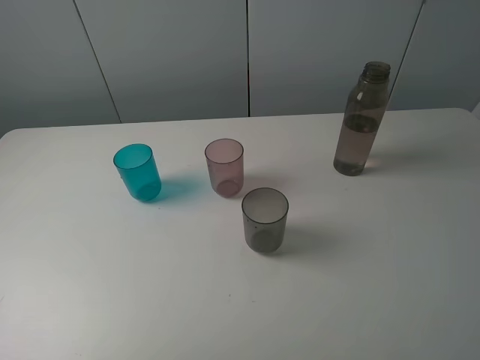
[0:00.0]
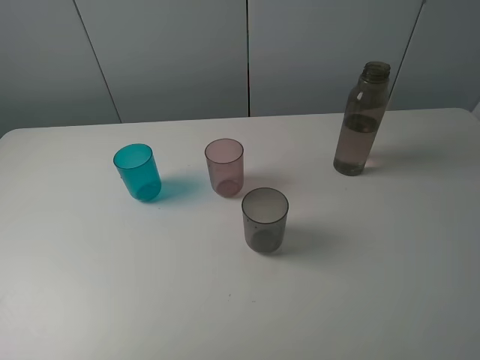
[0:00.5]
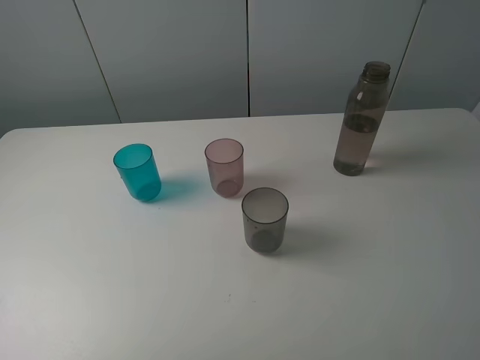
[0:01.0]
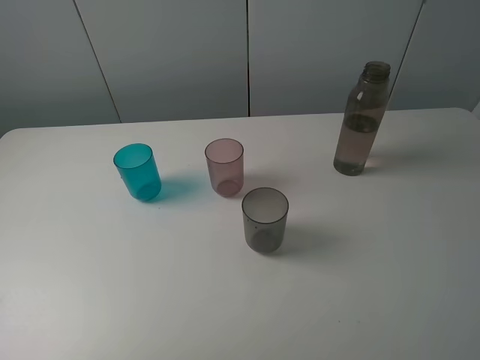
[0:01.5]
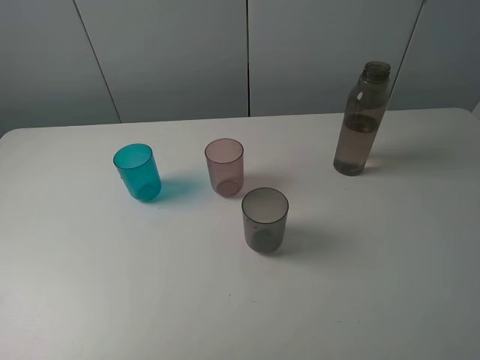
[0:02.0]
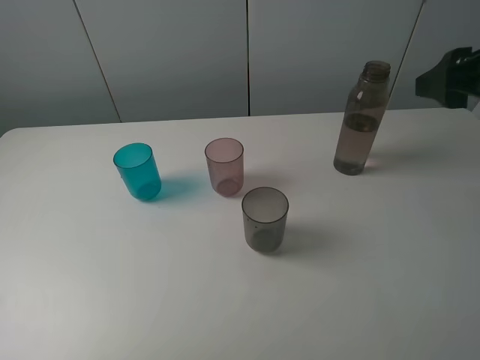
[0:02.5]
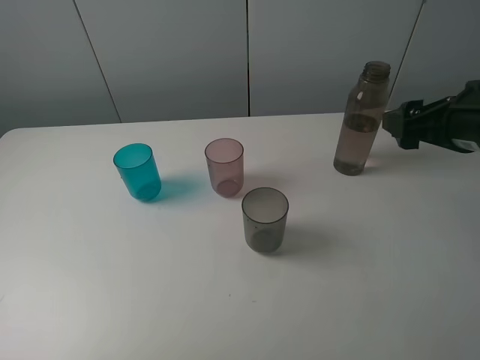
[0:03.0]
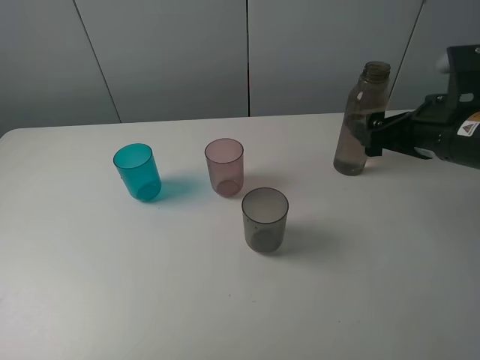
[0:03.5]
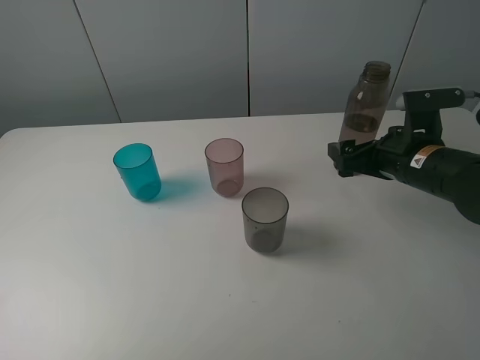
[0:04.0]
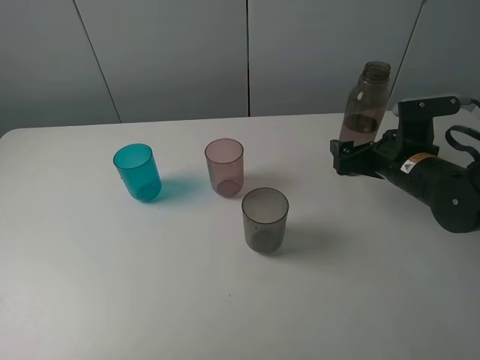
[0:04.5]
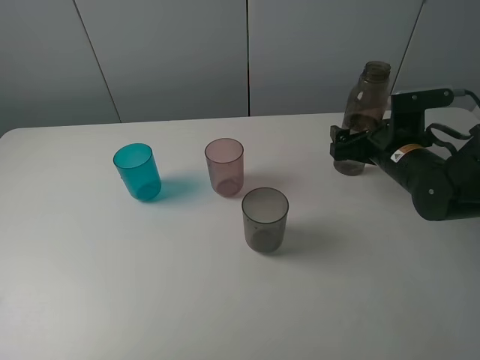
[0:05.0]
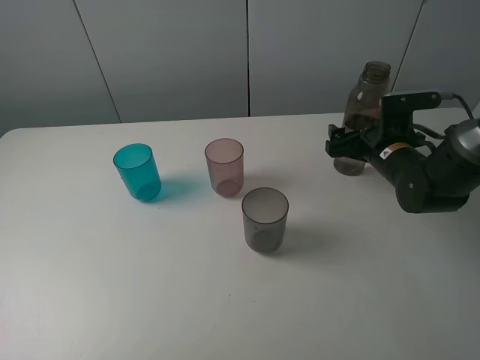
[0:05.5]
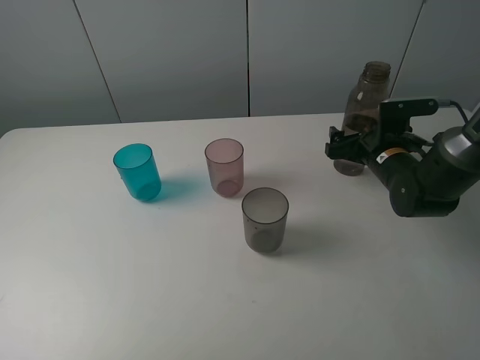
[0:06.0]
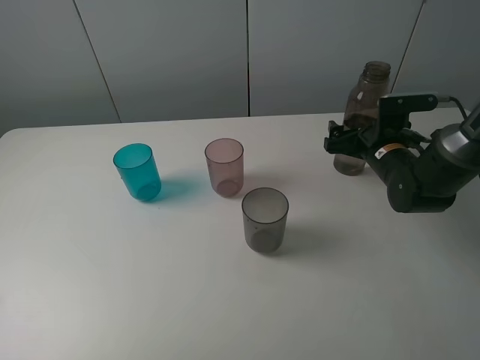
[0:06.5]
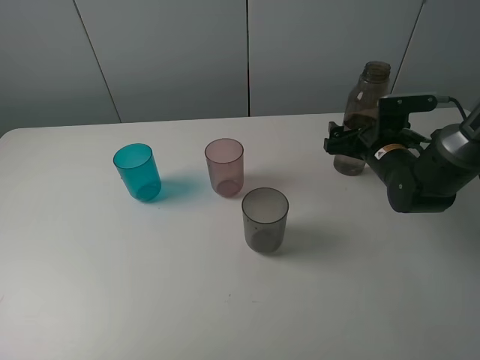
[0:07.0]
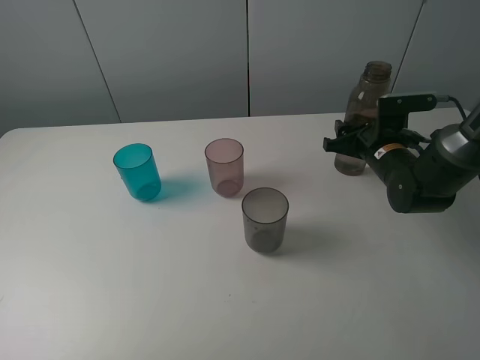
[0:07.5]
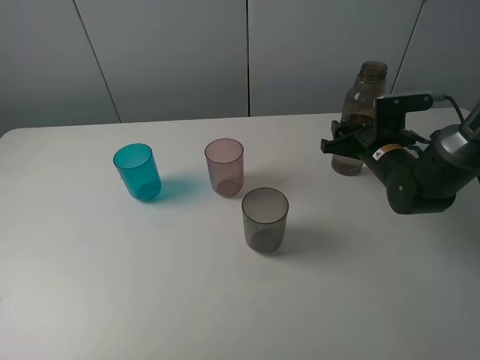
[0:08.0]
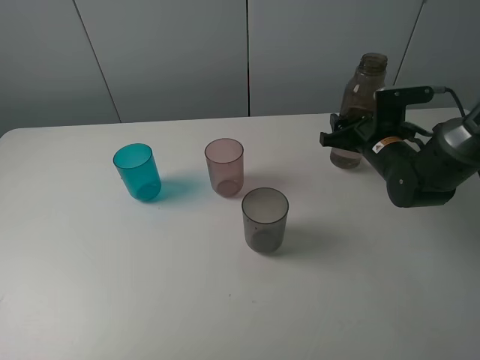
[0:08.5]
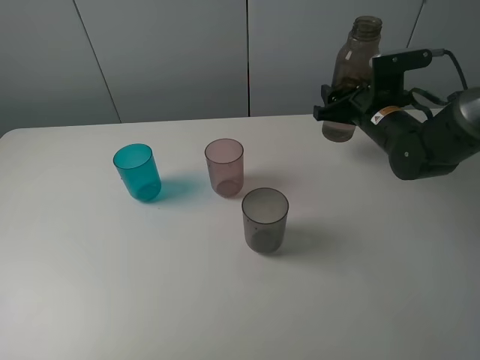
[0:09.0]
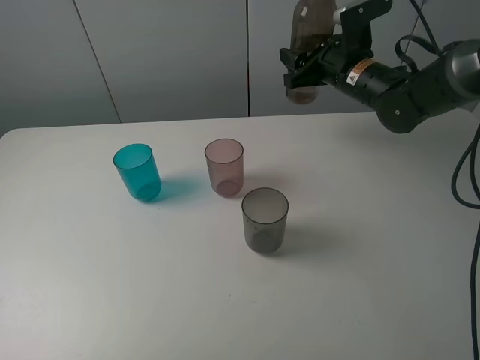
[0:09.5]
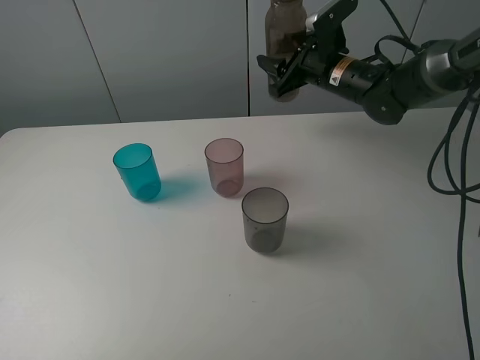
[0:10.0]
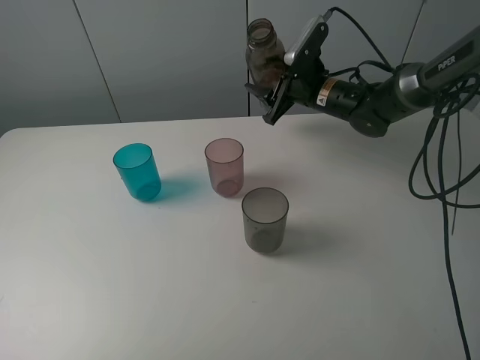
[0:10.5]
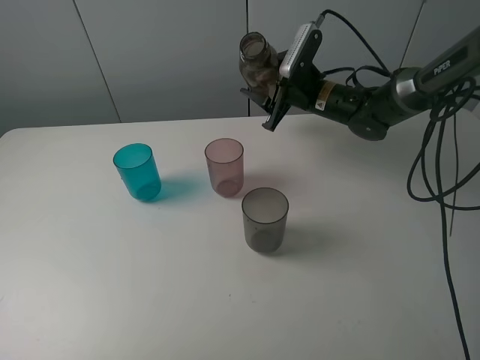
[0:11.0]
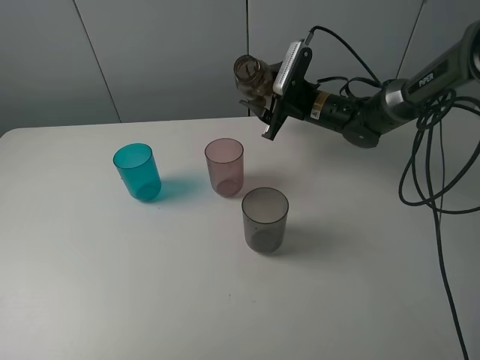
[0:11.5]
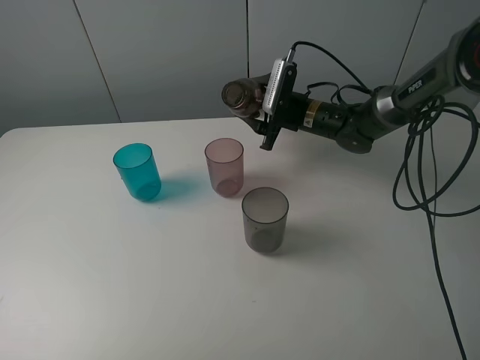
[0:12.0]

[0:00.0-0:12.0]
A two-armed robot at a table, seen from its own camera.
Task of the whole recording: pick up the bottle filled with water and pour water into the middle cup of the three cups.
Step, 0:00.0 to 0:08.5: Grasp the transparent bottle with the right gripper.
0:02.0 to 0:04.0: The right gripper heads downward and forward, covering some 25 cm, and opens.
0:04.0 to 0:06.0: The right gripper heads forward and downward, covering roughly 10 cm.
0:06.0 to 0:08.0: The right gripper closes.
0:08.0 to 0:10.0: The right gripper travels upward, forward and to the left by some 15 cm.
0:10.0 to 0:12.0: The right gripper goes roughly 10 cm downward.

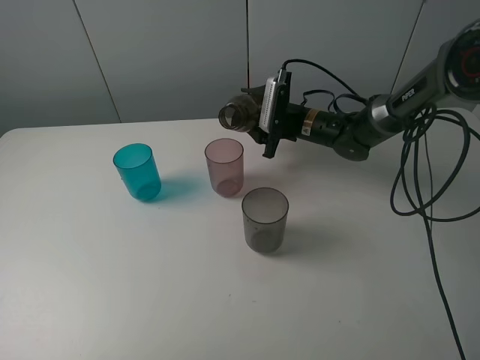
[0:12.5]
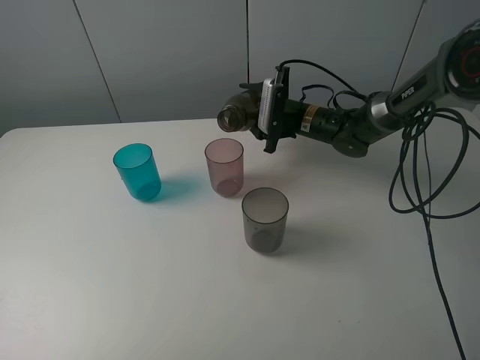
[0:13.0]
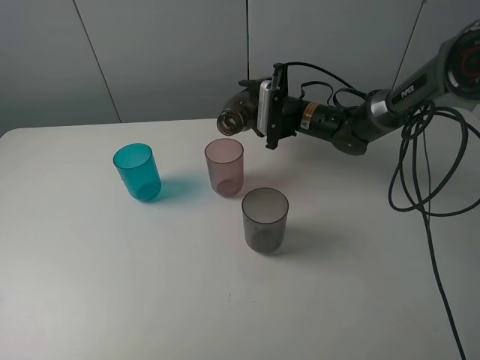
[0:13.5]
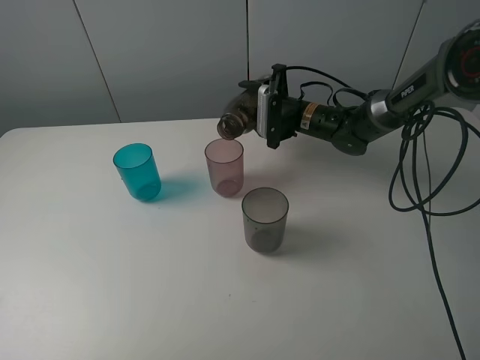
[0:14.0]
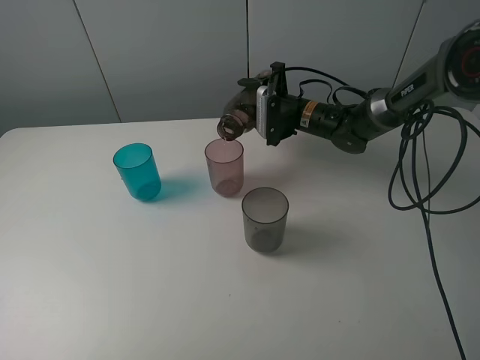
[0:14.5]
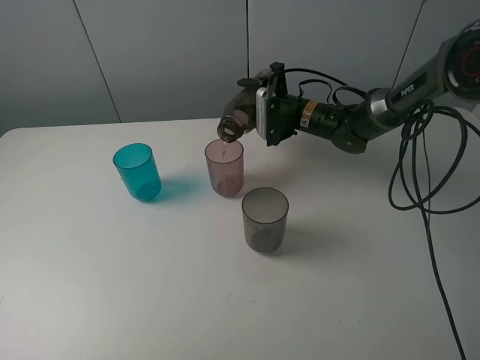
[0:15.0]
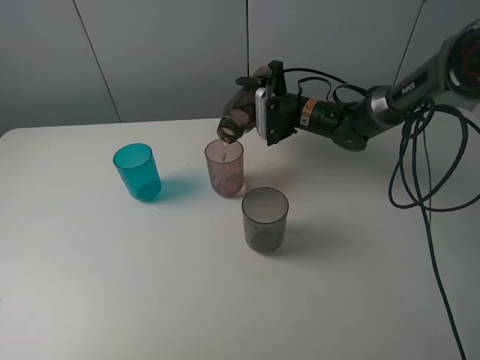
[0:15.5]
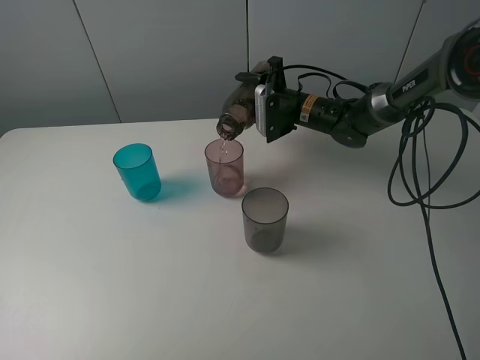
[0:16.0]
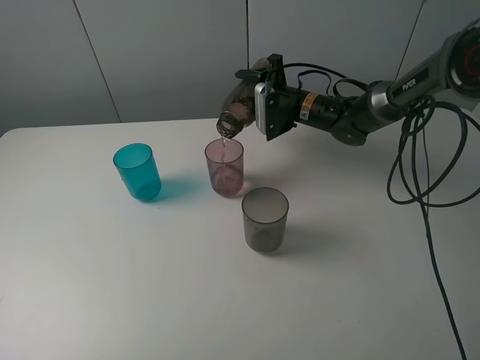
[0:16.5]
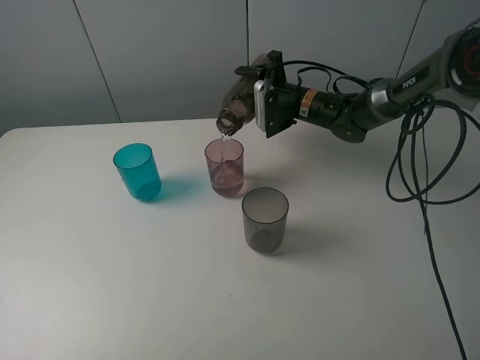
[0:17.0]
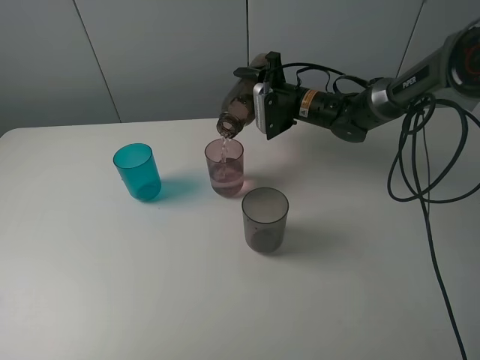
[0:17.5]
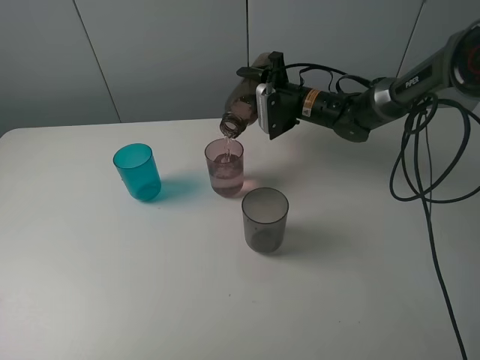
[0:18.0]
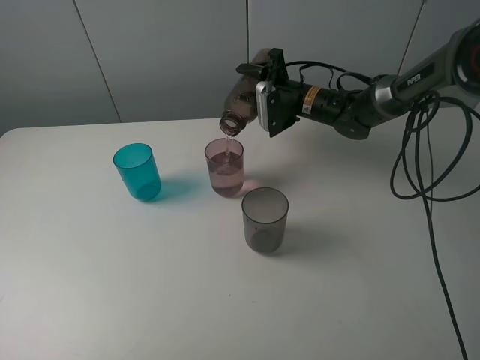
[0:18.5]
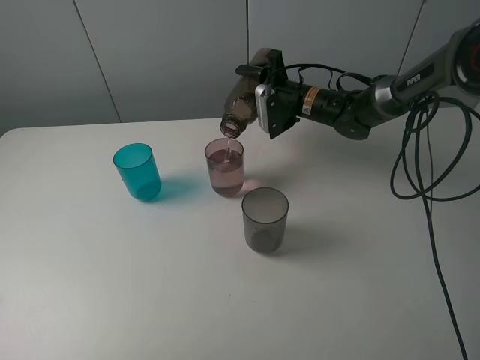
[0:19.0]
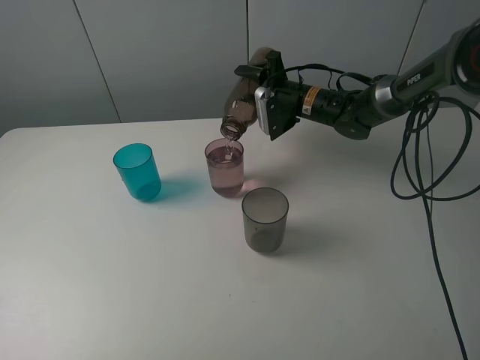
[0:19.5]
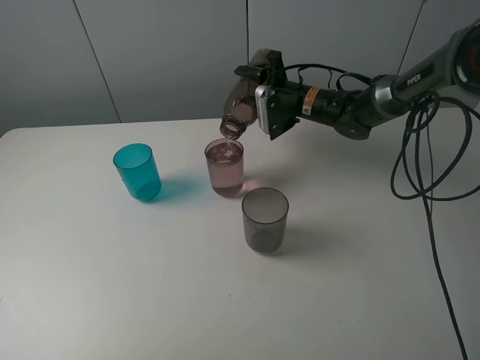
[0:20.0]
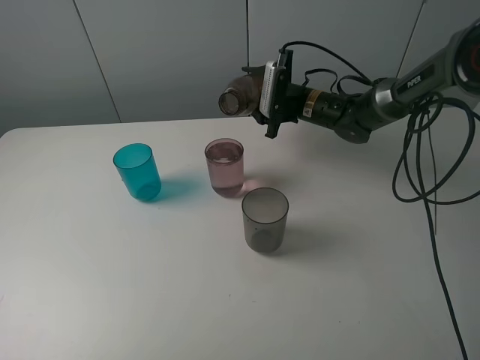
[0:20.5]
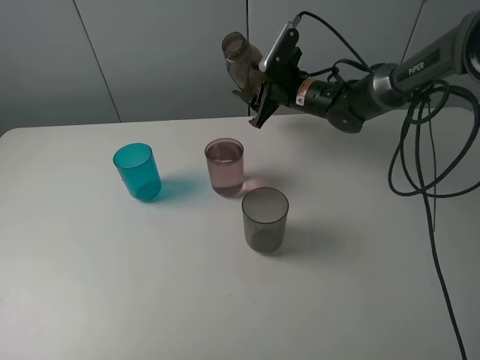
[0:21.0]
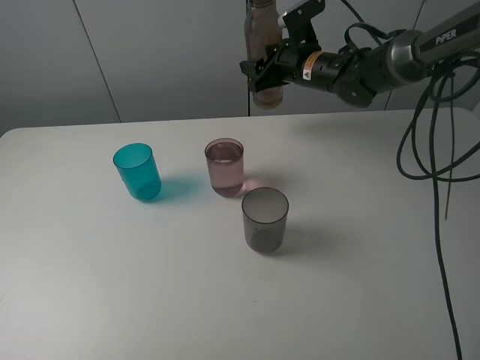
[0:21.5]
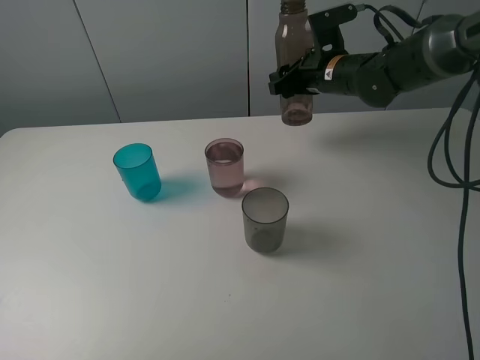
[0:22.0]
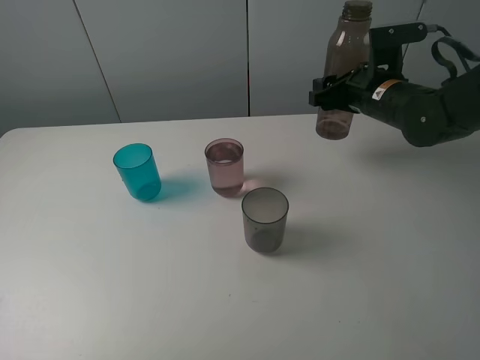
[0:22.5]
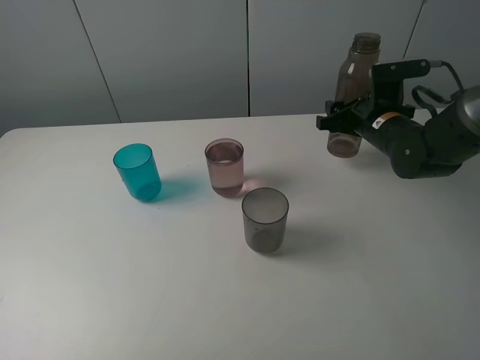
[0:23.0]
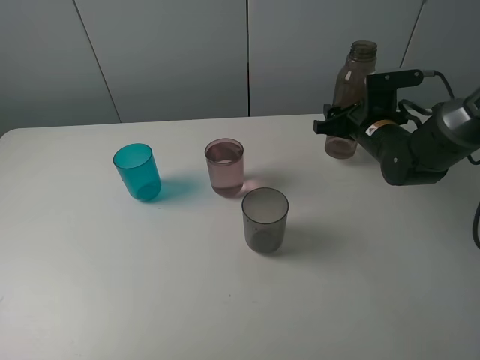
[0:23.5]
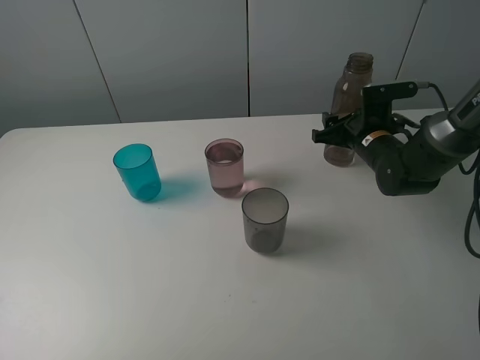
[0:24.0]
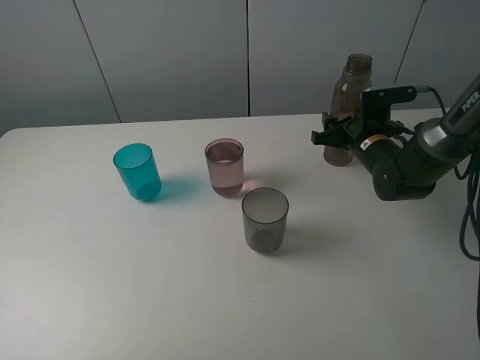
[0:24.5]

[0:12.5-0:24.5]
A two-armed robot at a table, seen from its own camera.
Task of the whole recording: pick up the bottle filled with water and pour water into the middle cup of the three cups.
0:14.5 to 0:18.5: The grippers stay close to where they were, moving slightly.
0:20.5 to 0:22.5: The right gripper shifts approximately 15 cm backward, to the right and upward.
0:22.5 to 0:24.5: The right gripper shifts some 10 cm downward.

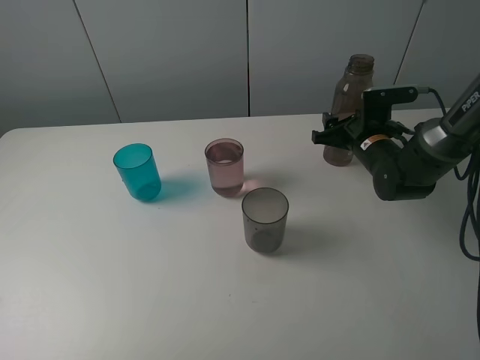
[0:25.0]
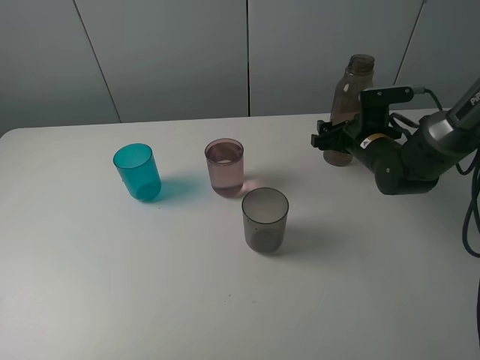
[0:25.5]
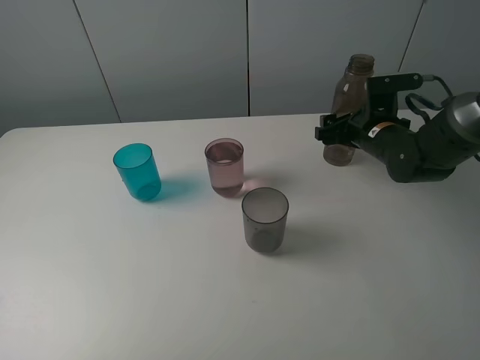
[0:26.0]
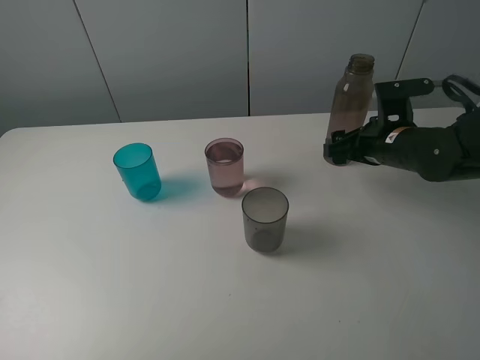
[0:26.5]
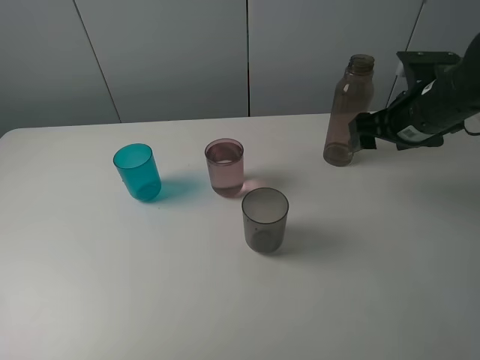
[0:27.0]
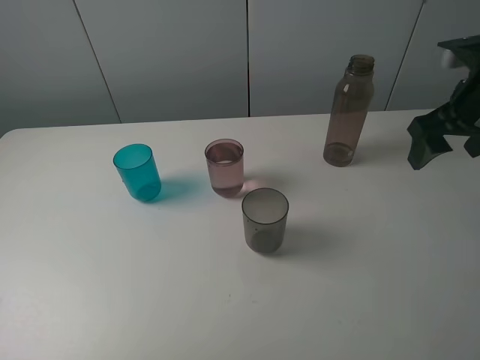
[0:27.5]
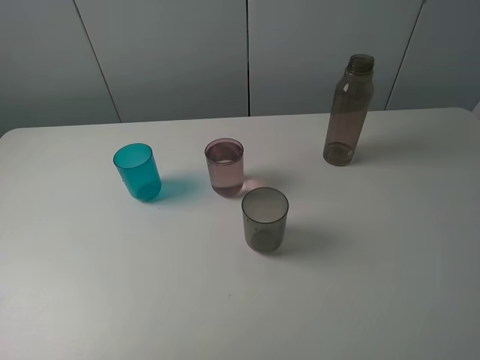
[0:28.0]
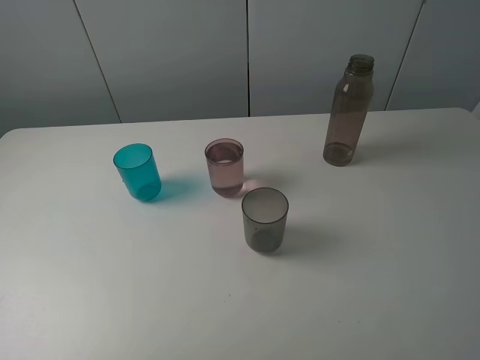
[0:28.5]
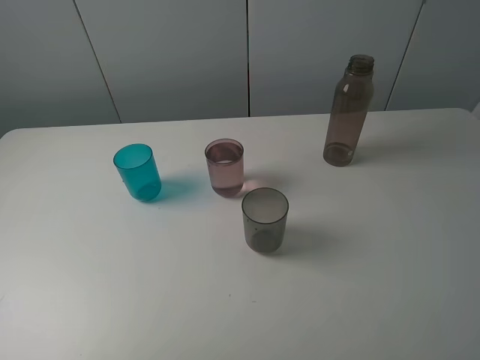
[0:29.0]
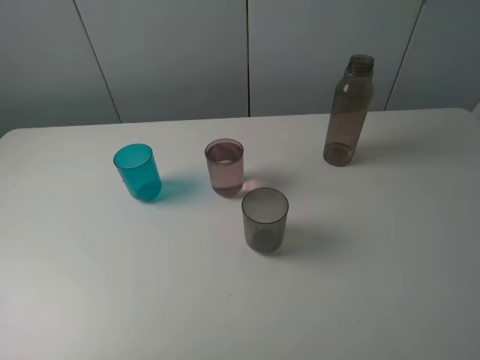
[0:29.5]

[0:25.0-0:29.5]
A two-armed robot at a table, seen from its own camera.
Task of the whole recording: pick up the bottle filled with water and pour water into the middle cup of the three cups.
0:25.0 to 0:27.0: The right gripper goes approximately 15 cm upward and backward, and opens.
0:27.0 to 0:29.5: The right gripper shifts roughly 30 cm backward.
